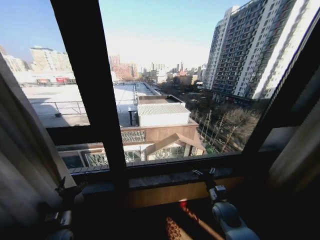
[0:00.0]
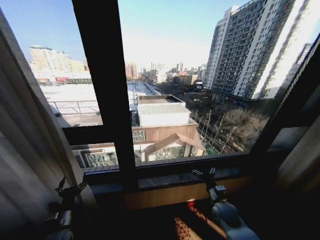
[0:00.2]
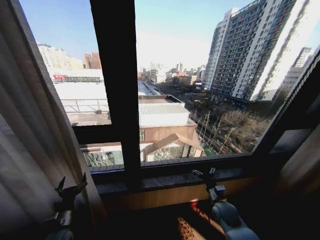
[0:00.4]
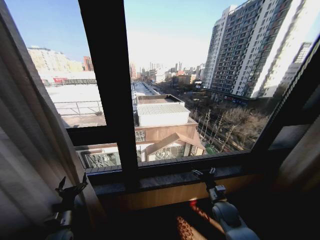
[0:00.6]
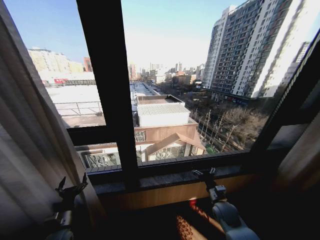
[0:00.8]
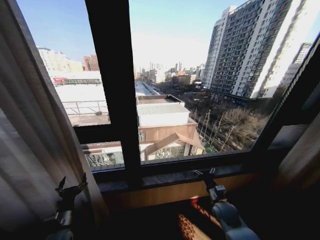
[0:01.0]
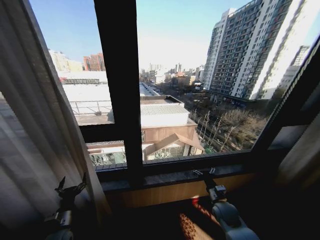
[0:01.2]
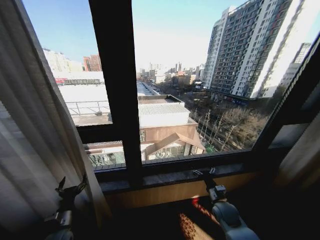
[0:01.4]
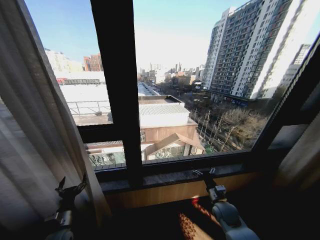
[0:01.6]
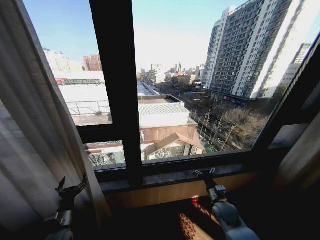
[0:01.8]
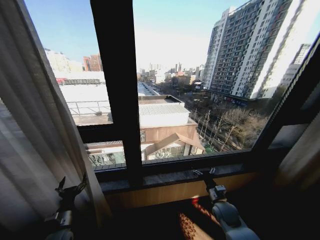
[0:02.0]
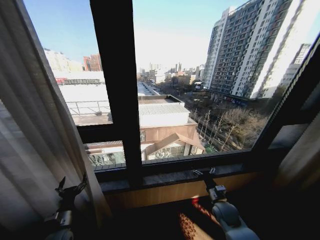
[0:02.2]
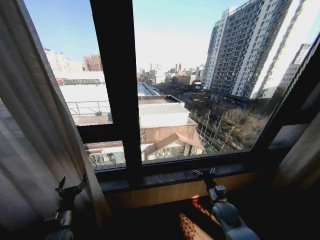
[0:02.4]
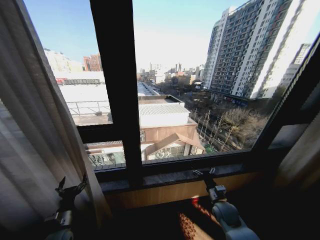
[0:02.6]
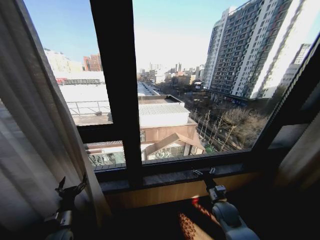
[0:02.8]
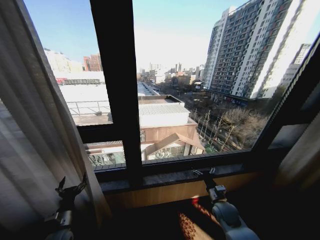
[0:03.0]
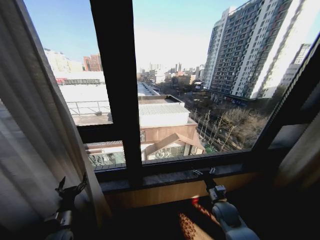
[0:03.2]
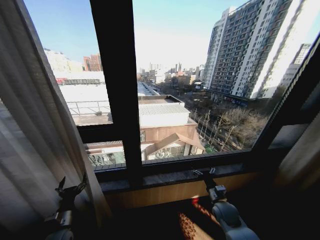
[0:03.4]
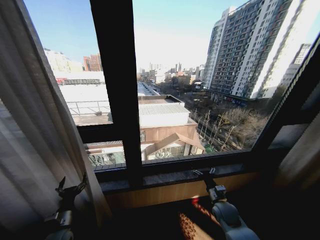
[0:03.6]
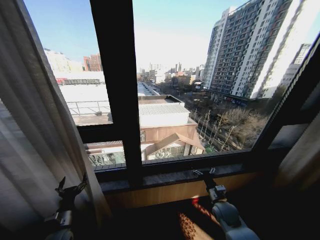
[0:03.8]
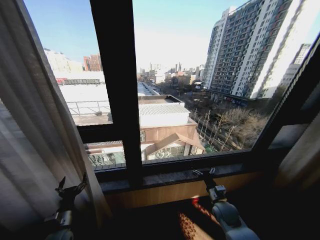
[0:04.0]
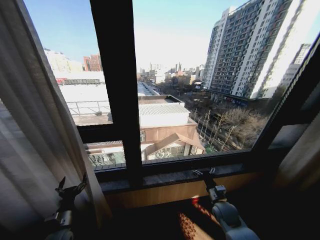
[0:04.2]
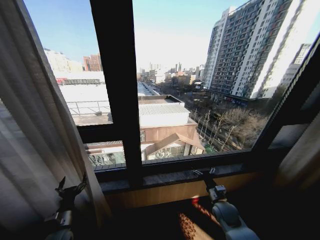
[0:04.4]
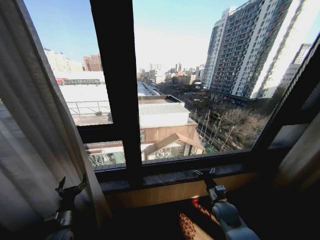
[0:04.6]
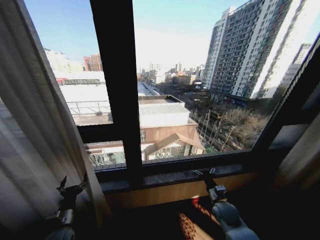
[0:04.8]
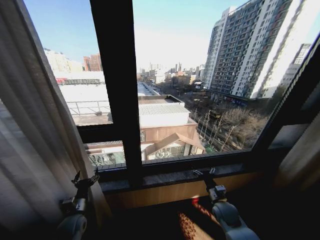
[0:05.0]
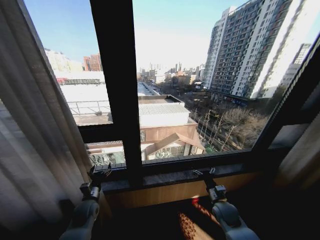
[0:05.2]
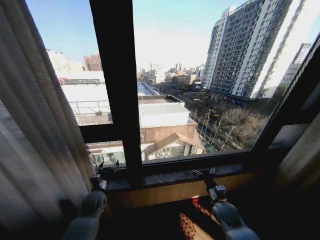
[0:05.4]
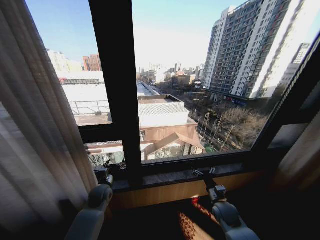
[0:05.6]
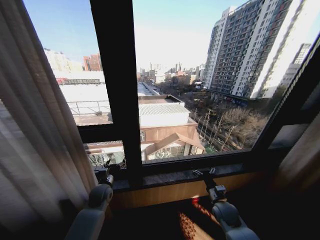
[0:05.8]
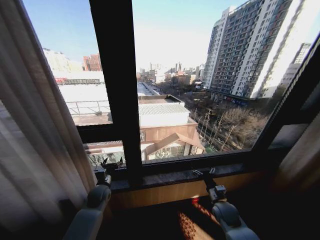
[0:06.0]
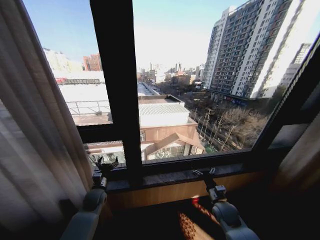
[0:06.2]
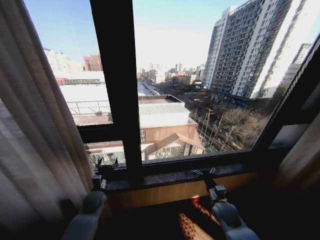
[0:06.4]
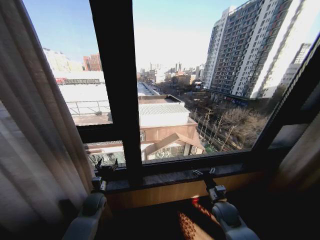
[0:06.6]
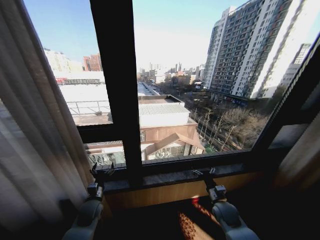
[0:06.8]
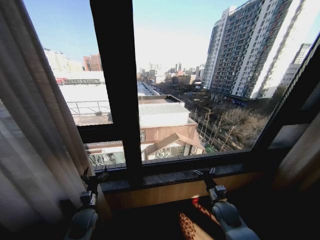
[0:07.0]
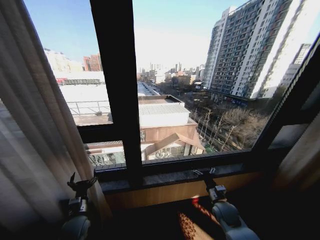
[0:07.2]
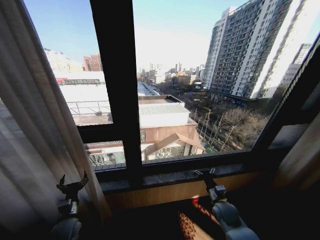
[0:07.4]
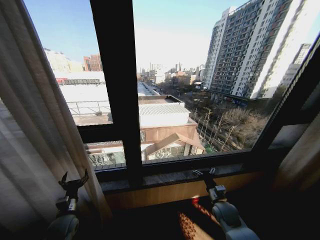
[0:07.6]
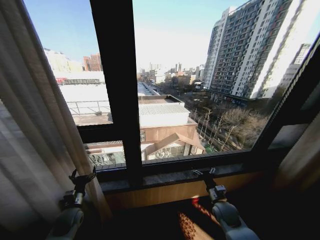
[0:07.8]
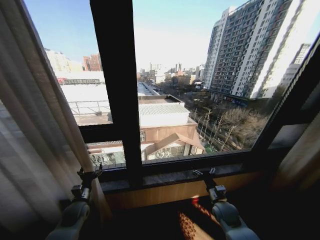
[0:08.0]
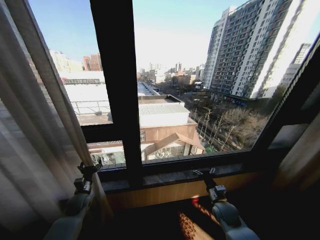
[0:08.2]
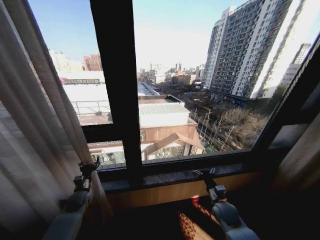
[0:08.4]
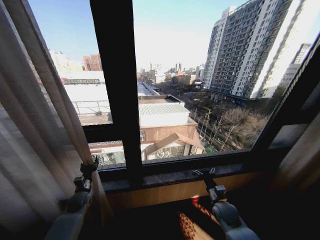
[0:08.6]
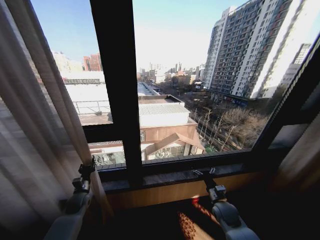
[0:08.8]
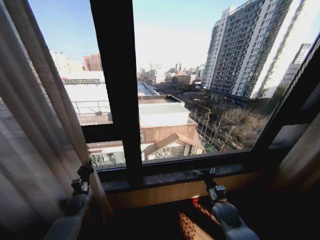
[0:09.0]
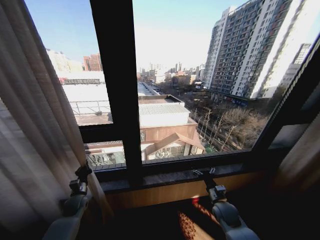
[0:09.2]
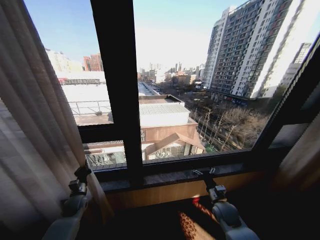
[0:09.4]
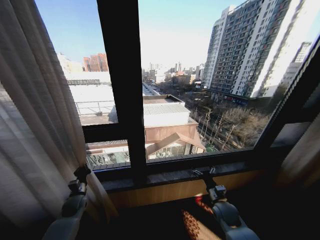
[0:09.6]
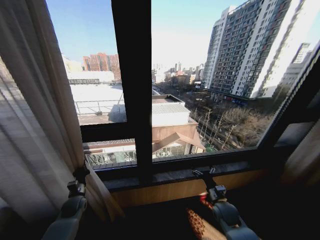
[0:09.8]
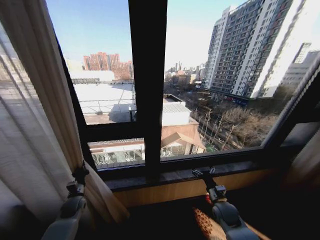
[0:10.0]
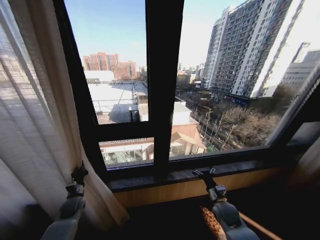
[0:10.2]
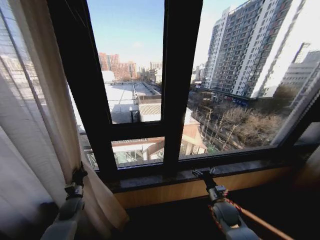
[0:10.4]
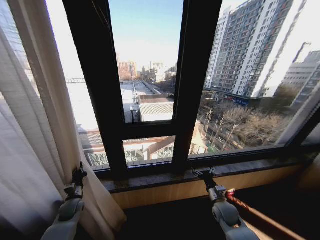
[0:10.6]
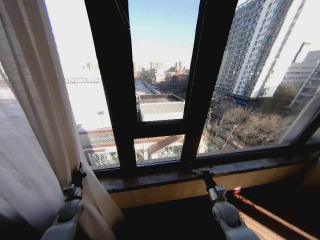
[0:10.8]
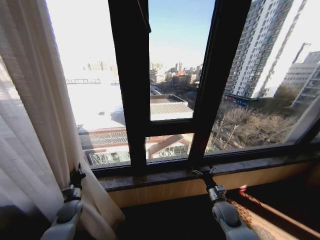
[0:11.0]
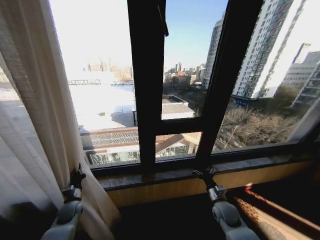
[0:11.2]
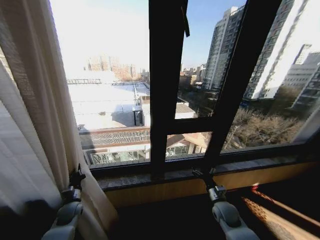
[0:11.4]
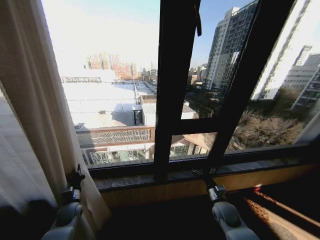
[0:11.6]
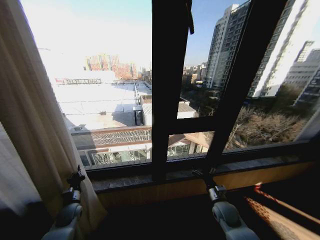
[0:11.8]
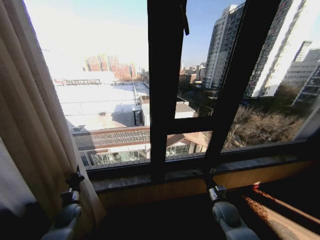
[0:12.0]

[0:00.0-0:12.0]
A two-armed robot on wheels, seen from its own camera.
Task of the whole recording: Open the curtains by pulling them apart, changing their state from closed to fully open.
0:01.6 to 0:04.4: Both grippers stay about where they are.
0:04.4 to 0:06.0: The left gripper moves forward and to the right, about 20 cm.
0:06.0 to 0:07.6: The left gripper heads backward and to the left, covering about 15 cm.
0:07.6 to 0:09.0: The left gripper goes about 10 cm forward, and closes up.

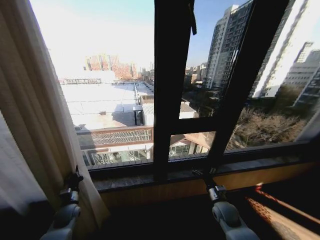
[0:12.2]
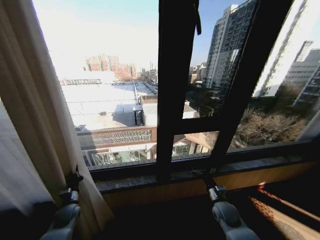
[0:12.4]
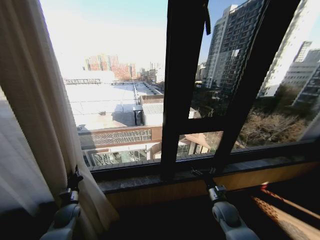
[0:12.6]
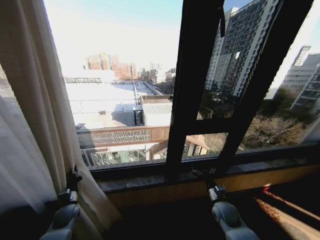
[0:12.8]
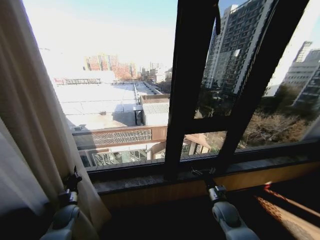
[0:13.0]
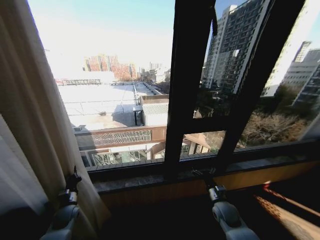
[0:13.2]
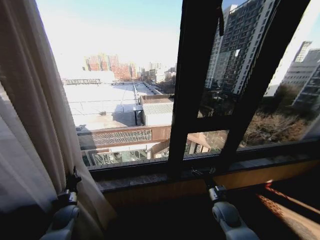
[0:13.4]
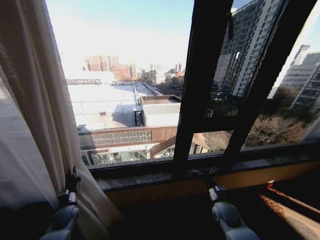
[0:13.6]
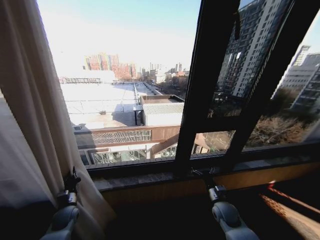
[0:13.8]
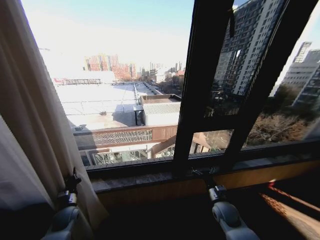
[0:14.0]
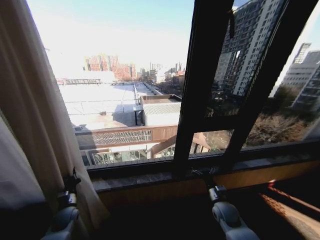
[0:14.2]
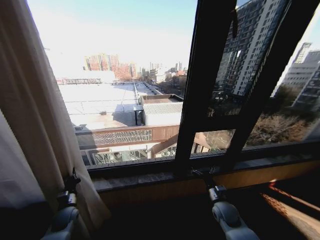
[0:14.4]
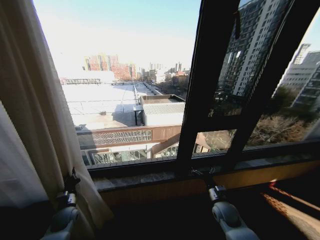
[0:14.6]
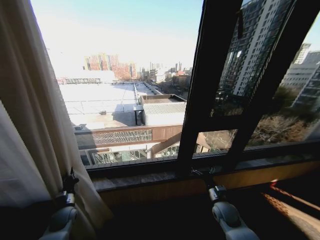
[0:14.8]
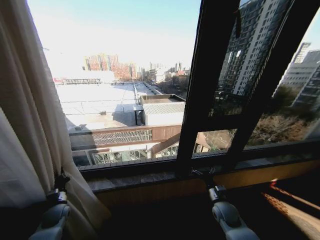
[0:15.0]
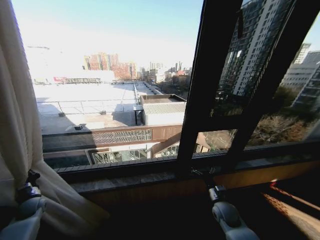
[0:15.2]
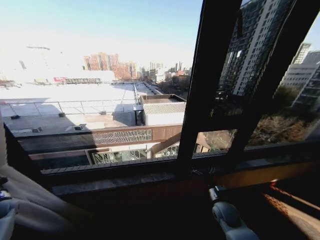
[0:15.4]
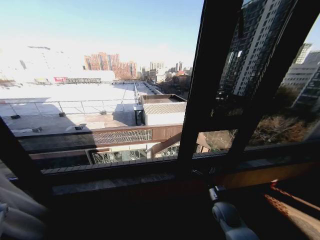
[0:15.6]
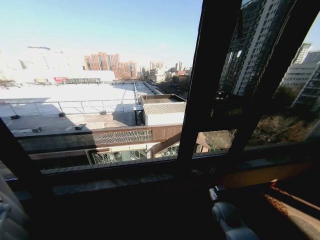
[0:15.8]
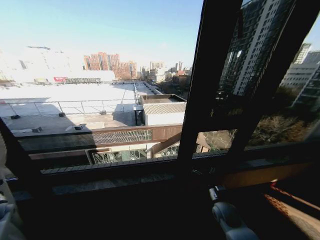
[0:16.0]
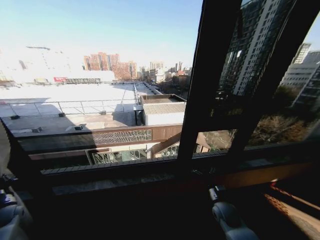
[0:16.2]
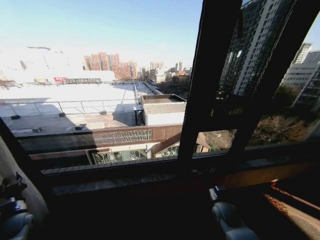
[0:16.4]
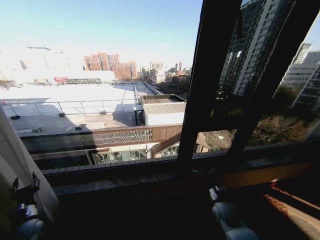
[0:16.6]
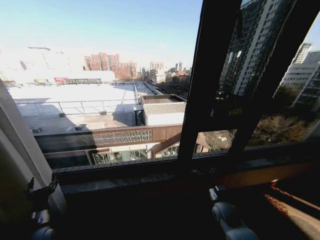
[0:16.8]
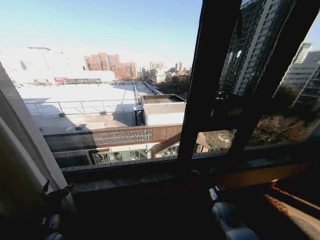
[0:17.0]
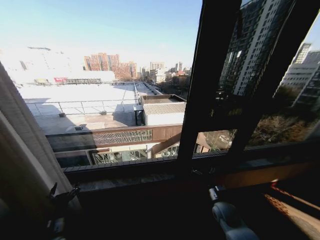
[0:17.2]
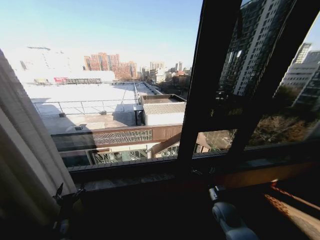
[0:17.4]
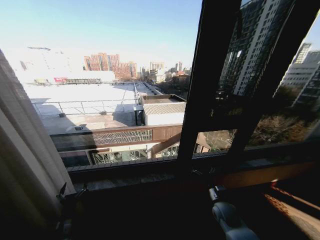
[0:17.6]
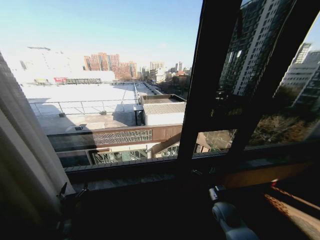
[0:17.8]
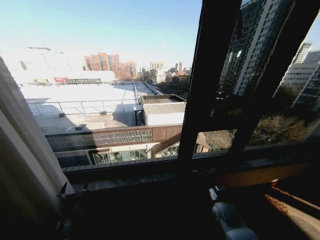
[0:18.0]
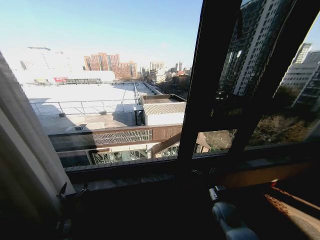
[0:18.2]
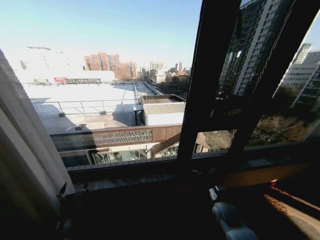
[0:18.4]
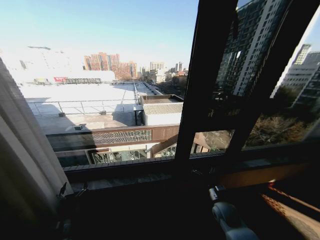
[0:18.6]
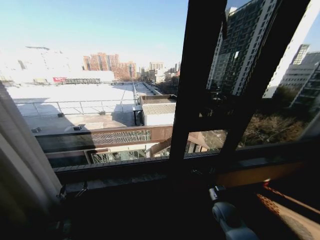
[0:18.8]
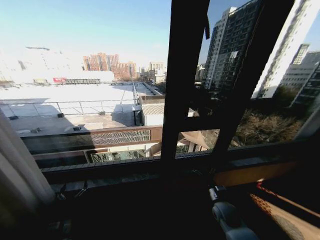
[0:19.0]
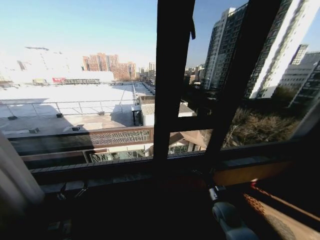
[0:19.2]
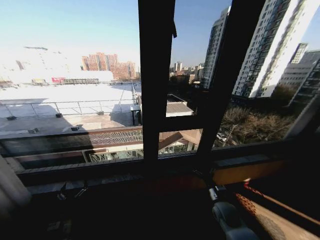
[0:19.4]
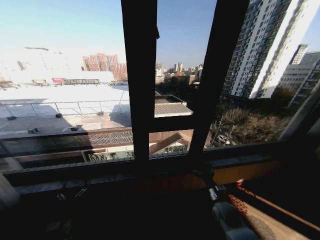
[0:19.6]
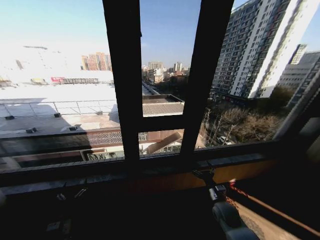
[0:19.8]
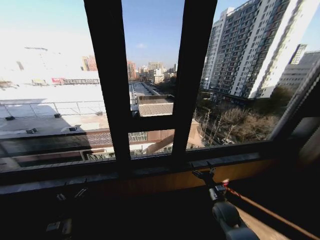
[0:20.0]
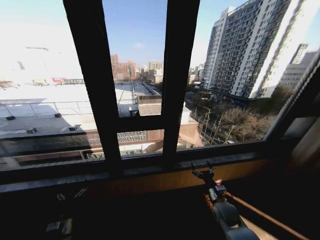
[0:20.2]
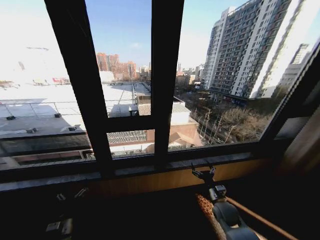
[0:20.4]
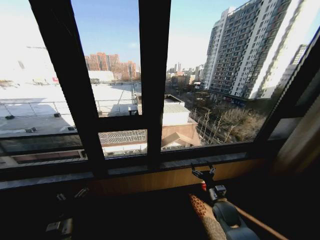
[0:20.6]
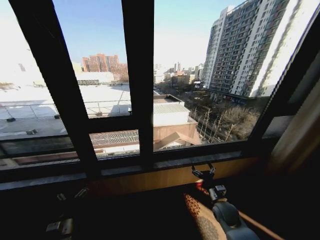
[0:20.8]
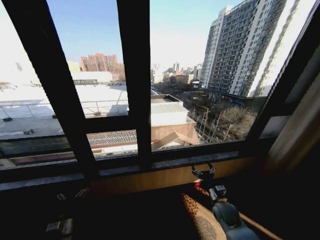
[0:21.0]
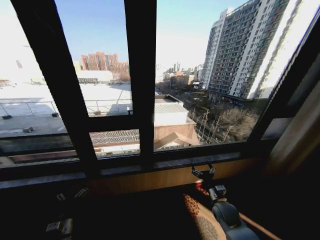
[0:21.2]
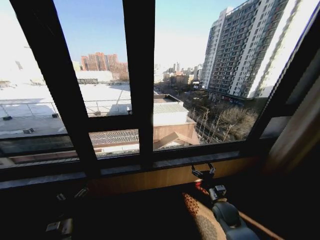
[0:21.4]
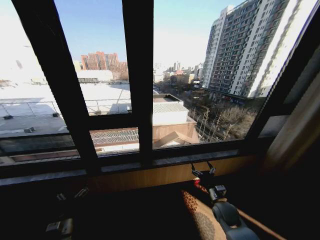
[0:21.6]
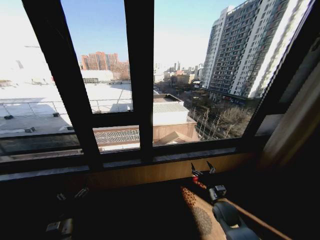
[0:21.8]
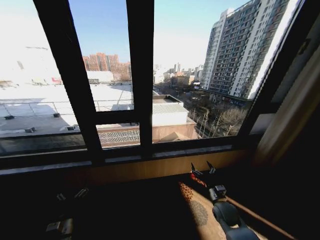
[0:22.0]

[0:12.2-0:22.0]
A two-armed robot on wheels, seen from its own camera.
Task of the whole recording: Open the curtains by pulling them apart, changing their state from closed to fully open.
0:15.0 to 0:16.4: The left gripper goes about 10 cm to the left.
0:16.4 to 0:17.8: The left gripper shifts some 20 cm to the right, and opens.

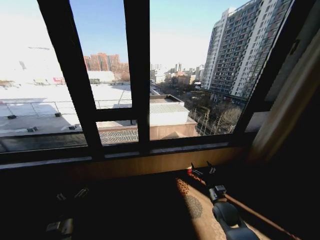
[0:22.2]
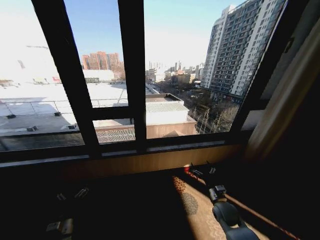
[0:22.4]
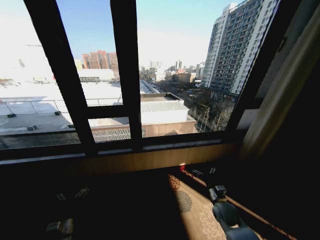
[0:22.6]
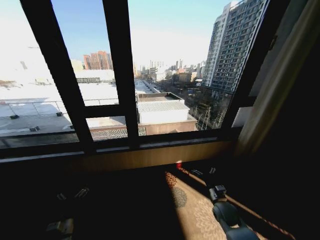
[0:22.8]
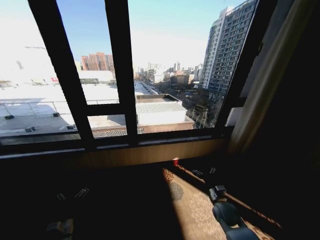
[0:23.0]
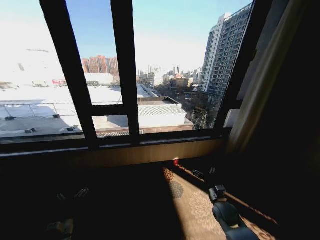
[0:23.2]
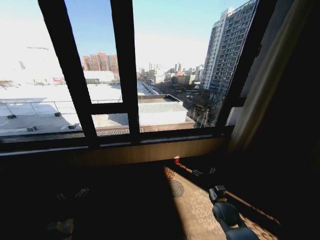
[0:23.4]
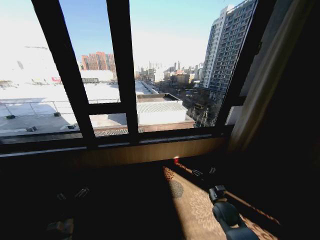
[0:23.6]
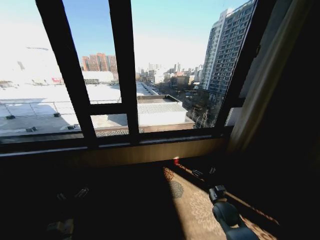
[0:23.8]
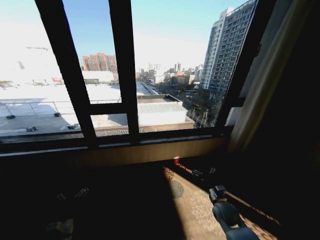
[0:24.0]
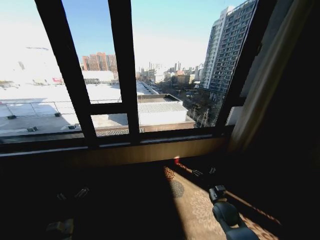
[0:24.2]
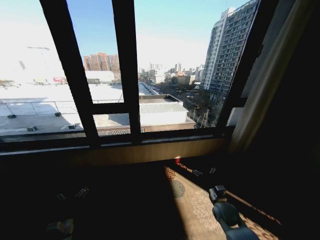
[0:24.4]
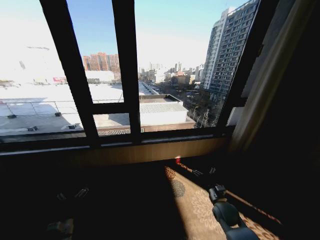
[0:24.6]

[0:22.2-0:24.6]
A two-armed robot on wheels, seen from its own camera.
Task of the whole recording: Open the curtains by pulling them apart, changing their state from closed to fully open.
0:23.4 to 0:24.6: Both grippers stay about where they are.
